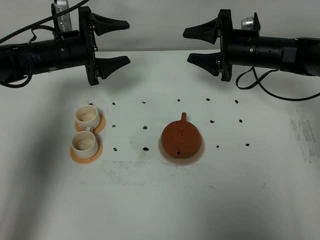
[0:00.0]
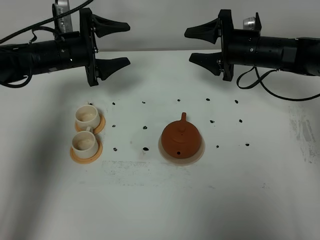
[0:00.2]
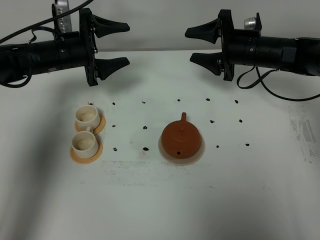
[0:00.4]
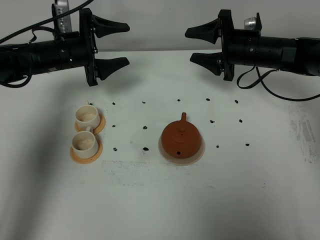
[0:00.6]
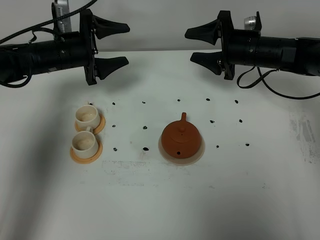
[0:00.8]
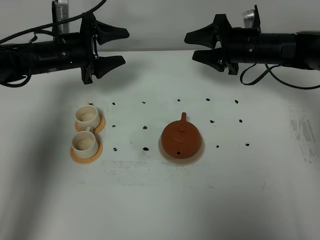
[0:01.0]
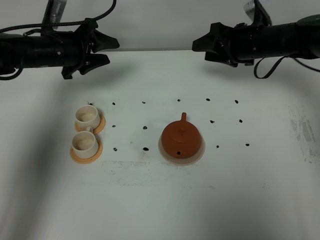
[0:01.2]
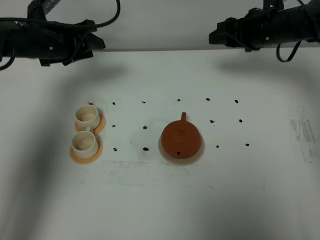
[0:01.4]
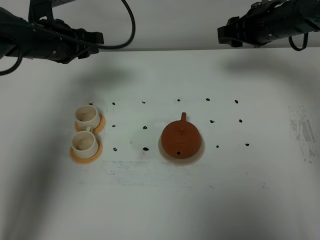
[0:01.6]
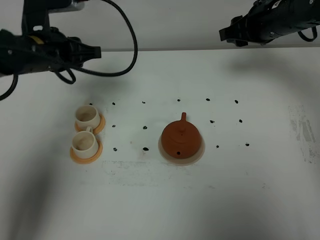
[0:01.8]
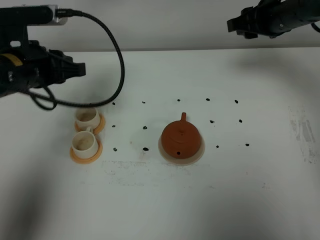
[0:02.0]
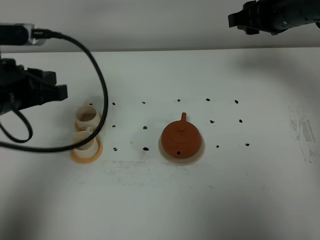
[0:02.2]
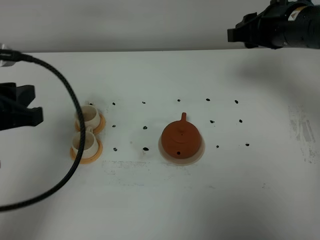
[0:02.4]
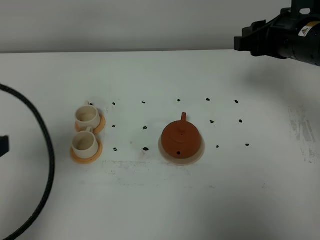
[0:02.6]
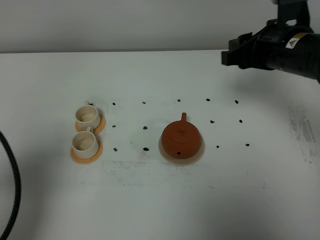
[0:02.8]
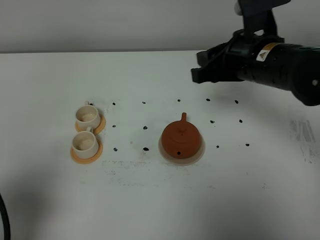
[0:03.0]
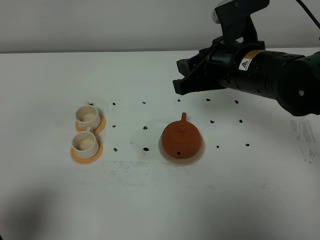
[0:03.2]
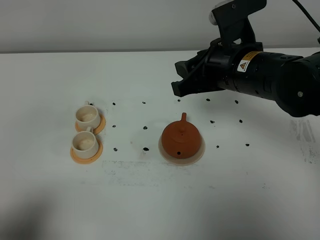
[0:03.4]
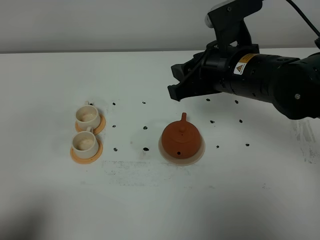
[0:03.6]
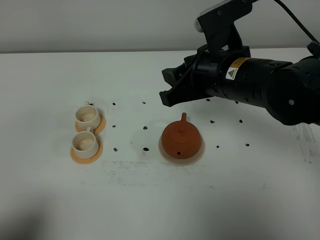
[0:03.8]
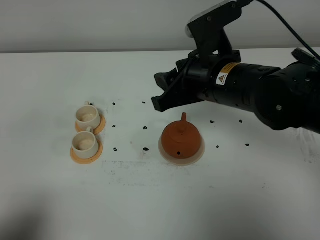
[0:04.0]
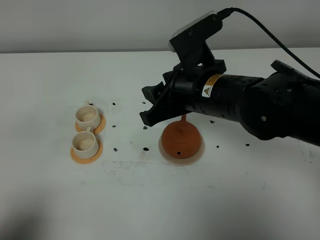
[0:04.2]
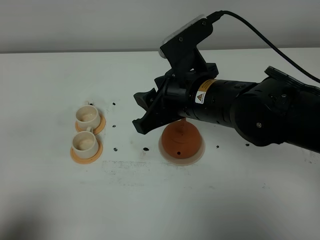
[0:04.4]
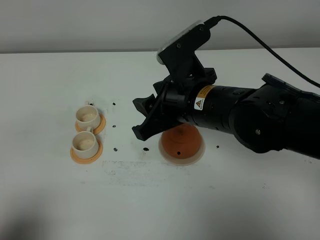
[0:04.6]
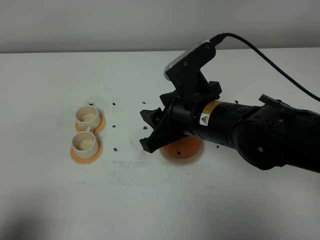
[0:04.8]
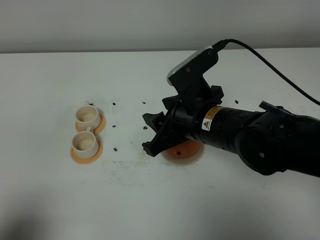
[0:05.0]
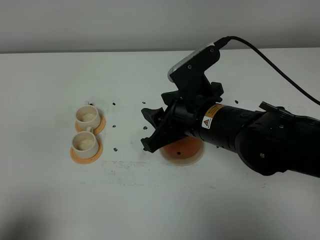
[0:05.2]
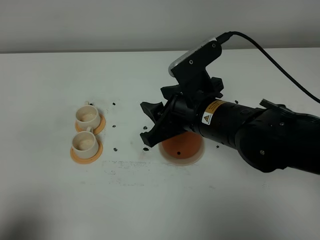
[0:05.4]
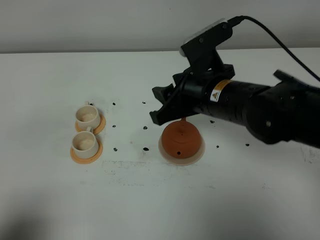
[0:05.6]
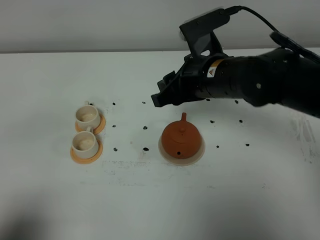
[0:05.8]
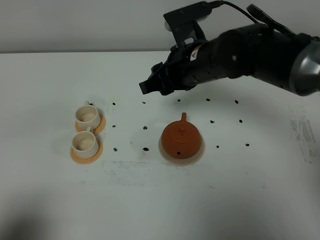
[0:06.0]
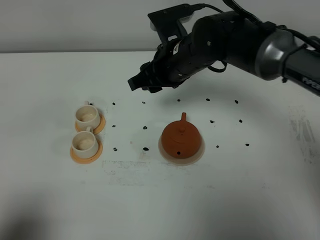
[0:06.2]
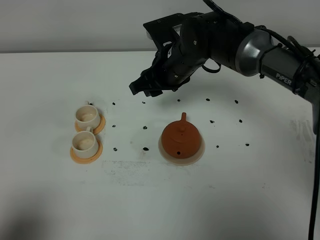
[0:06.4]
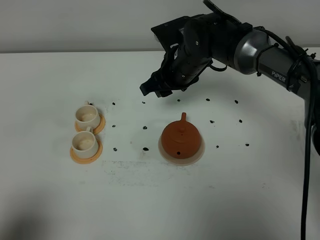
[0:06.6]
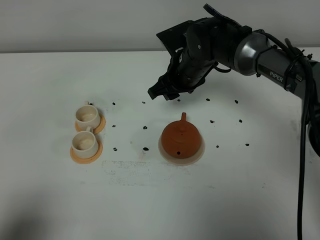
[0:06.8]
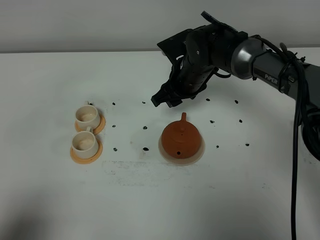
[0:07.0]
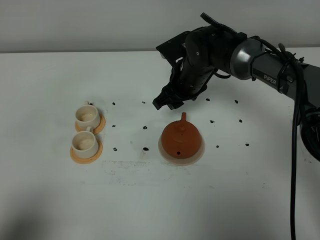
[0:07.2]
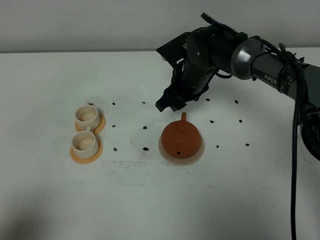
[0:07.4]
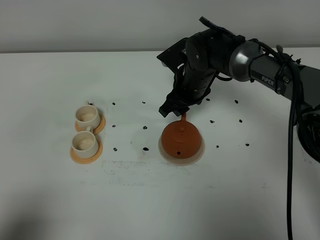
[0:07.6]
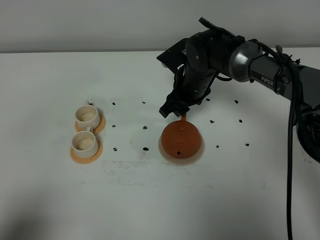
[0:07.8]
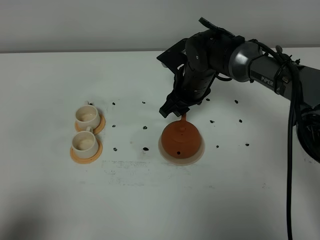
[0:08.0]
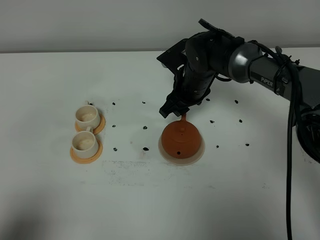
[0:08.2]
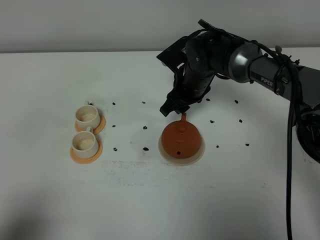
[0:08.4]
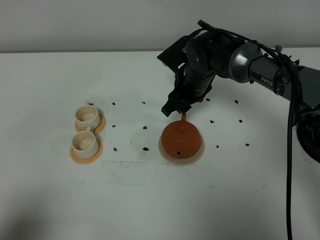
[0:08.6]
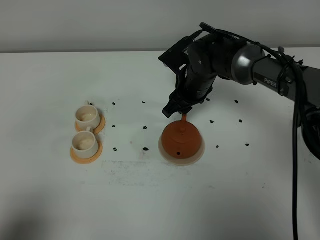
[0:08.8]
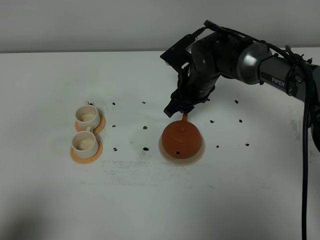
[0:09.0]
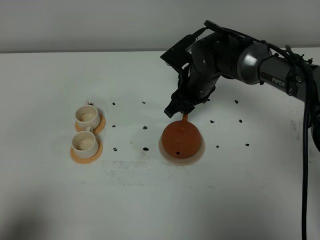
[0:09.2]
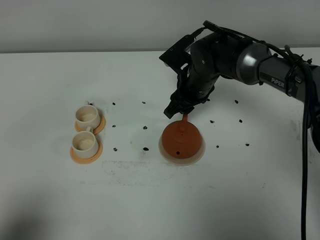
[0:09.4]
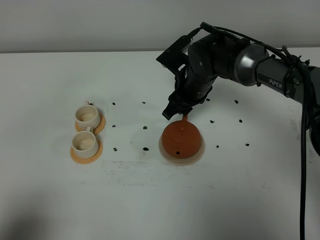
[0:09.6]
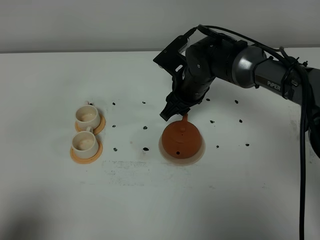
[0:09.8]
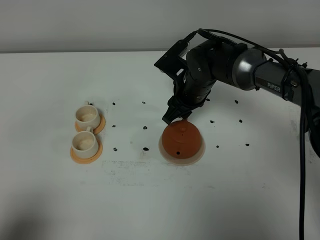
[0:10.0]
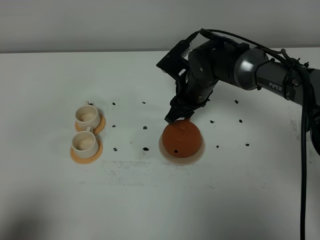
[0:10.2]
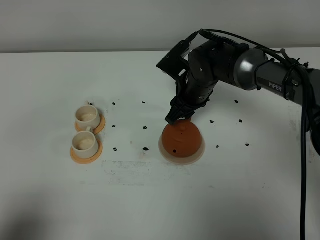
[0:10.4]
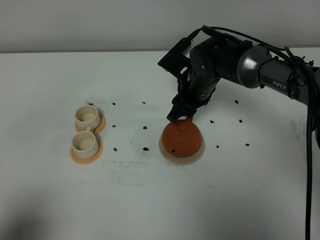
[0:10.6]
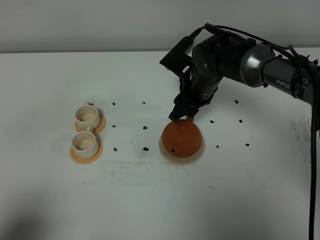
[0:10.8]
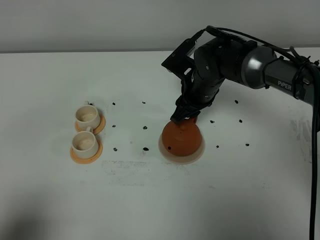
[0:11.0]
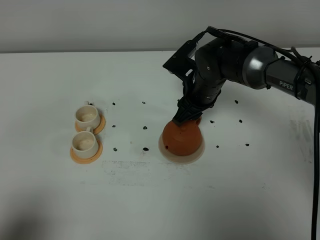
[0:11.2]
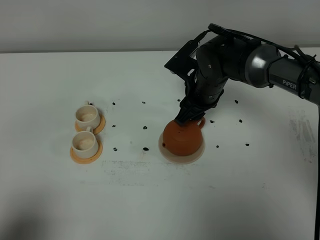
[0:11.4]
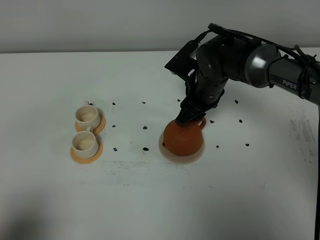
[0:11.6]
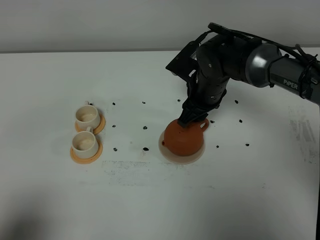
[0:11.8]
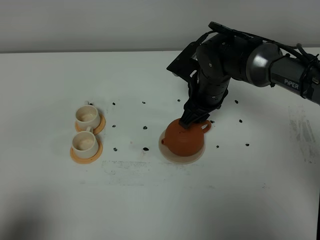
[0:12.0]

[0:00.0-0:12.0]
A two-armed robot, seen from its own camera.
Task of the whole recording: grasp the brown teapot and pour the tea into the two white teacups one by one, put the brown teapot back in its original place.
0:00.0 to 0:01.6: Both grippers travel together upward, about 5 cm. The left gripper closes its fingers.
0:01.6 to 0:03.0: The left gripper travels backward by roughly 35 cm, and closes up. Meanwhile the right gripper heads backward and to the left, covering about 15 cm.
0:03.0 to 0:04.4: The right gripper heads to the left, covering some 10 cm, while the left gripper heads backward, covering roughly 10 cm.
0:04.4 to 0:06.0: The right gripper is displaced forward by about 10 cm.
0:06.0 to 0:07.6: The right gripper travels downward and forward by some 15 cm.
0:07.6 to 0:12.0: The grippers stay close to where they were, moving slightly.

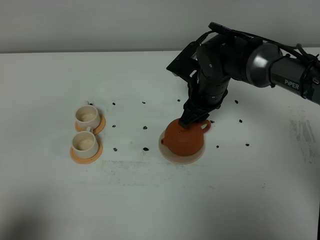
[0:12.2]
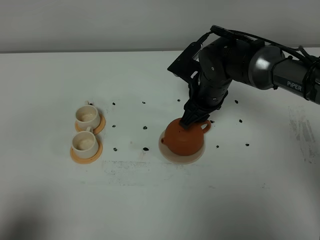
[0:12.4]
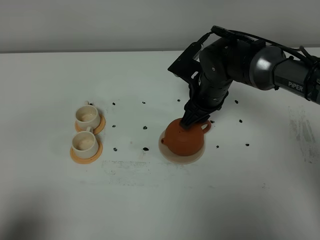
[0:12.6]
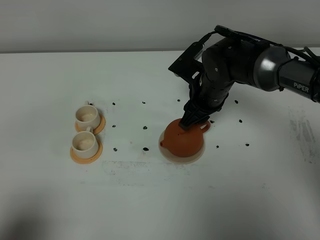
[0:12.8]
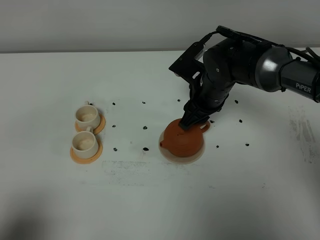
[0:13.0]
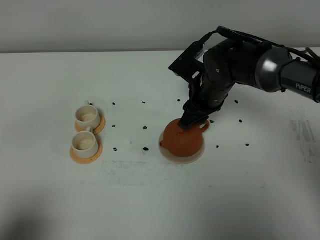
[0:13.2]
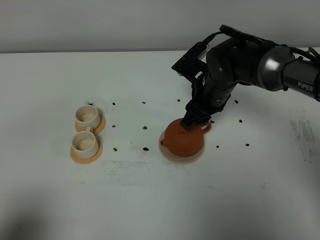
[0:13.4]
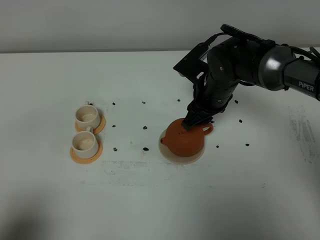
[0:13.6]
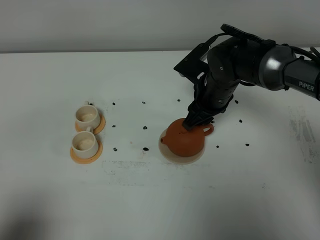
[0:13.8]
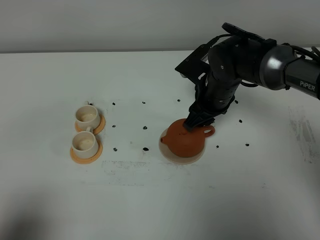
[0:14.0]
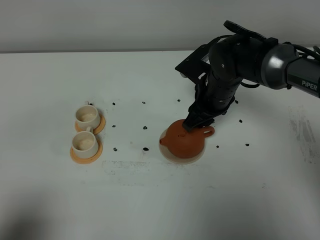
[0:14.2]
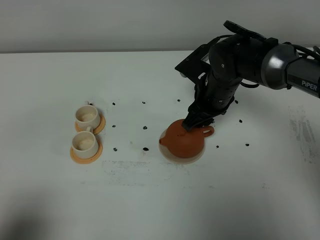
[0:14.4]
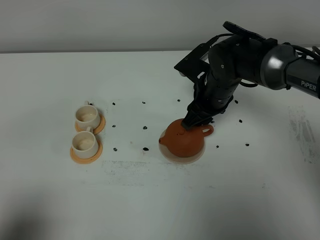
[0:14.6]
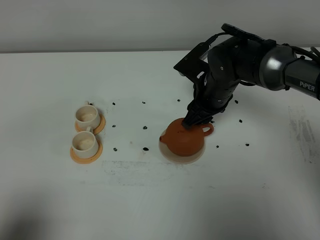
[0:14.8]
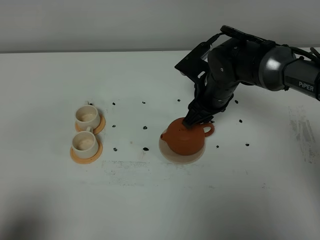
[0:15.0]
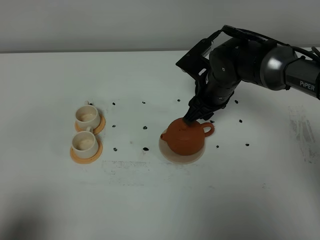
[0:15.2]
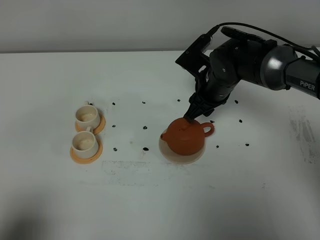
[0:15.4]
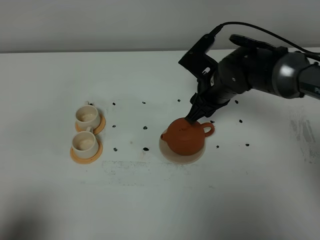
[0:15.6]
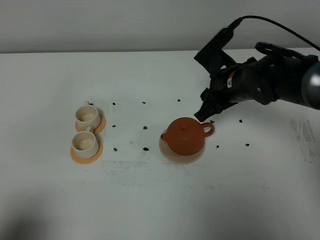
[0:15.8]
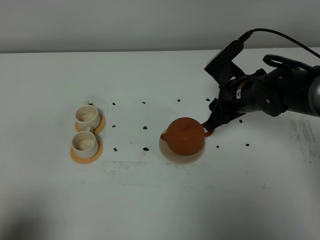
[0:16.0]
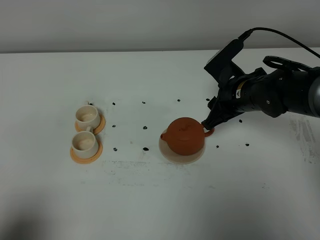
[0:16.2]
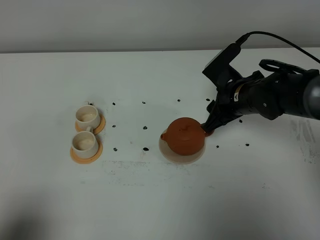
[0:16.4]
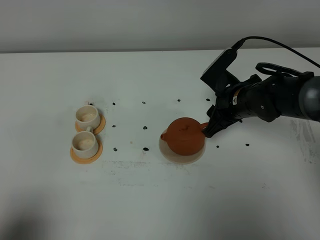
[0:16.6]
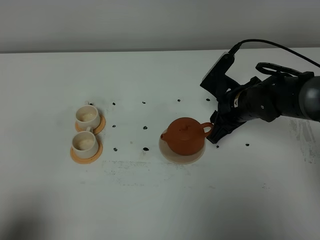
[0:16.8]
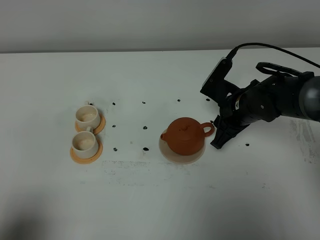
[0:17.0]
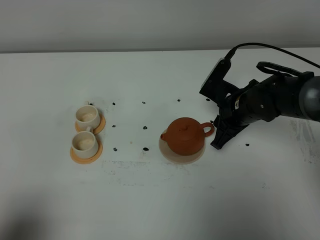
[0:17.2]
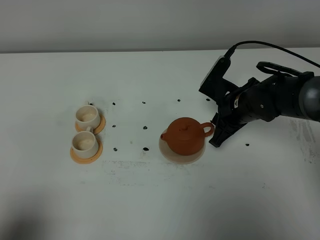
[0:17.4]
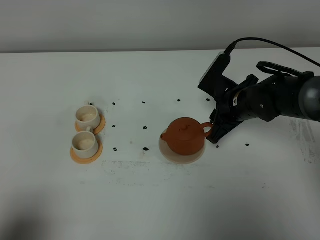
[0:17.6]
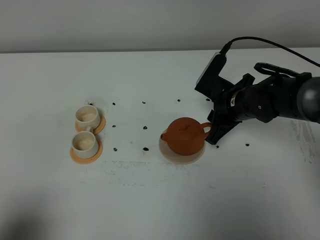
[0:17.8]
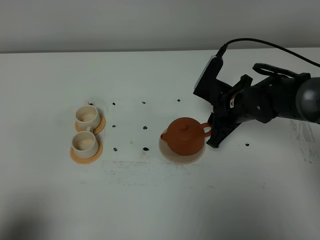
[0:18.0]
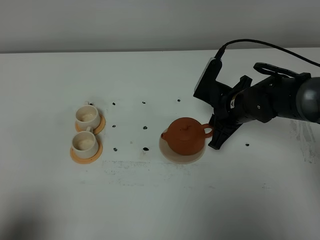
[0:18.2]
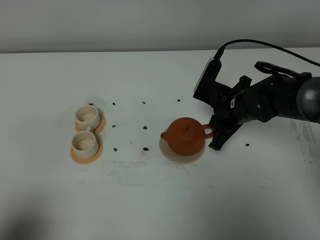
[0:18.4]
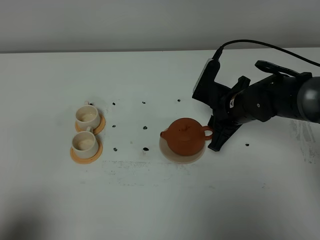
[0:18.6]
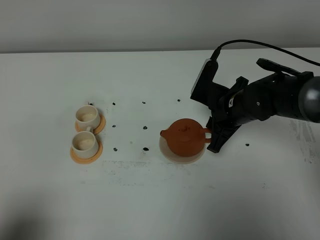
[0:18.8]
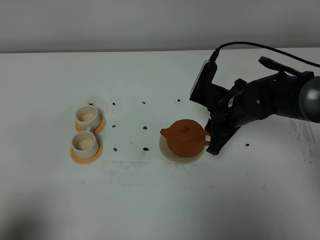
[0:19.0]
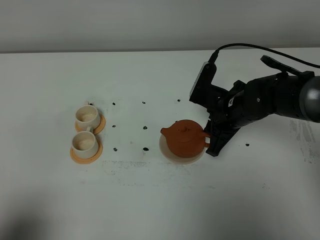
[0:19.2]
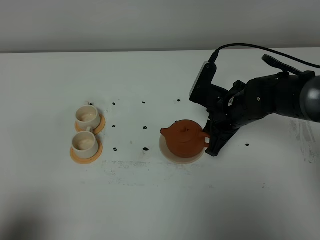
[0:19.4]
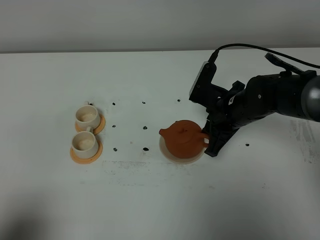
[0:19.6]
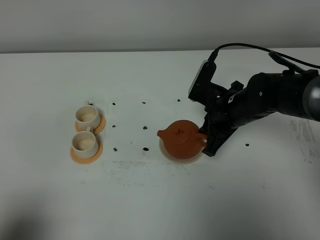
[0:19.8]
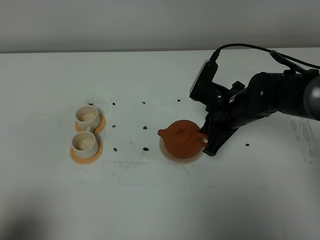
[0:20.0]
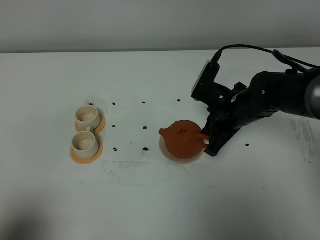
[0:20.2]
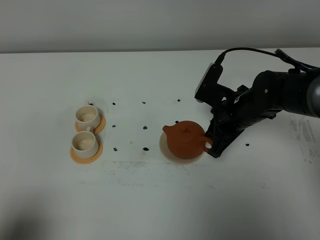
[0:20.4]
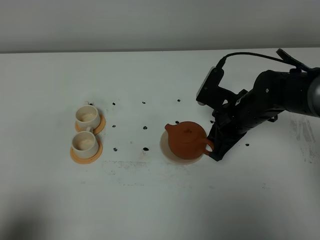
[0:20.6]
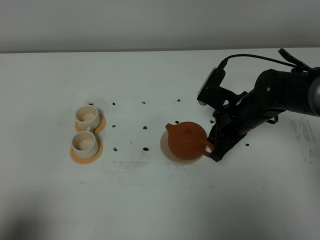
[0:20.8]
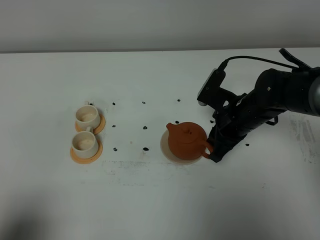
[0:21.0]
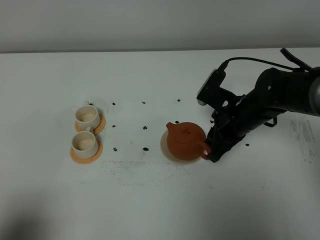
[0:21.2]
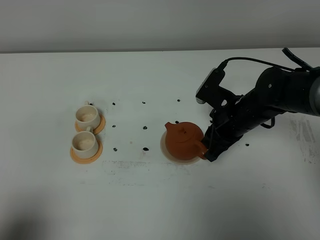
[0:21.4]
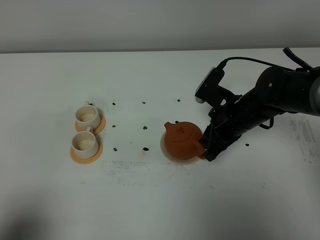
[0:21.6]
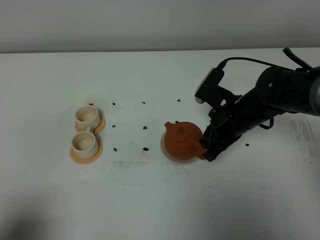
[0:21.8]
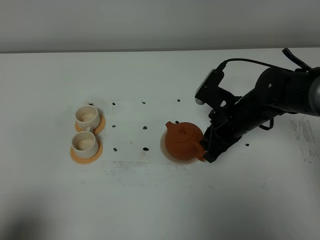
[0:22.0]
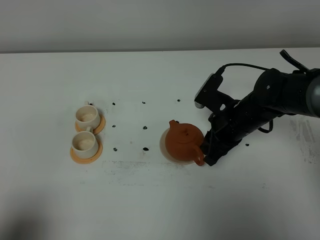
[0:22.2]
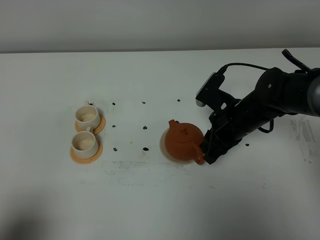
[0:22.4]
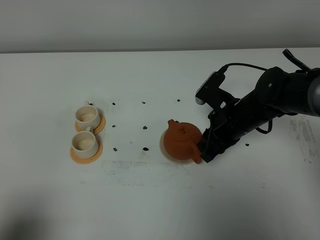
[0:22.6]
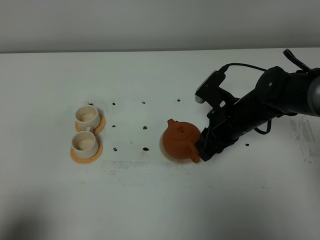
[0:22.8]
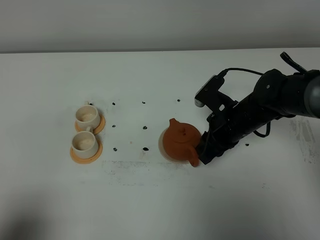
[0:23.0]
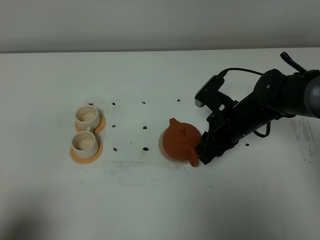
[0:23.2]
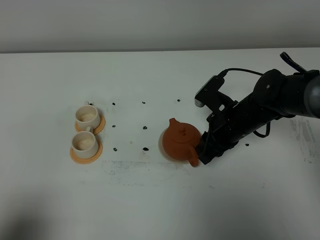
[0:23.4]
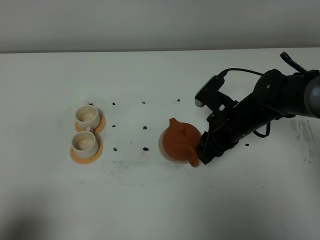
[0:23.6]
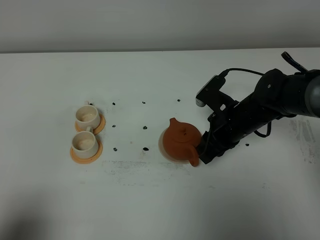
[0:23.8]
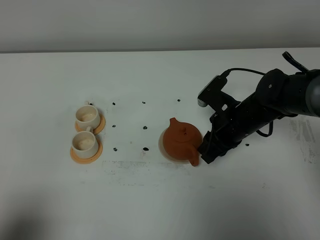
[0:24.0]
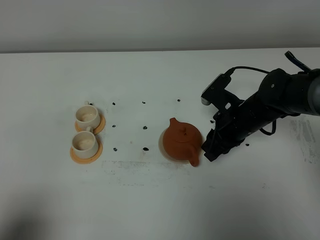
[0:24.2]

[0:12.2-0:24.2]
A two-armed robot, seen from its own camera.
Task of the whole recording: grasp the brown teapot and pour the tea into the two white teacups one by one, put the brown teapot back in its original place.
0:12.2 to 0:15.2: The grippers move only a little.
0:15.2 to 0:16.6: The right gripper ends up some 5 cm from where it was.
0:16.6 to 0:19.8: The grippers stay close to where they were, moving slightly.
0:19.8 to 0:22.6: There are only small adjustments of the grippers.
0:22.6 to 0:24.2: The grippers make only small movements.
